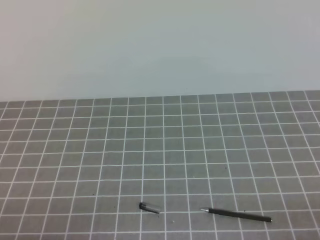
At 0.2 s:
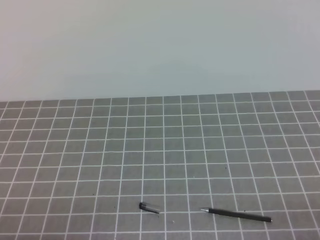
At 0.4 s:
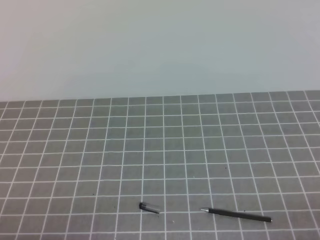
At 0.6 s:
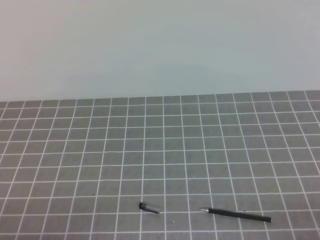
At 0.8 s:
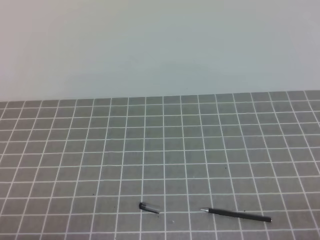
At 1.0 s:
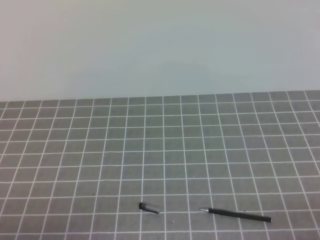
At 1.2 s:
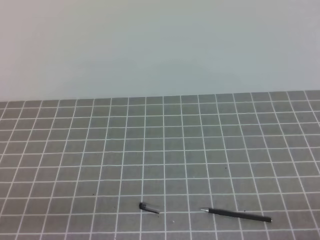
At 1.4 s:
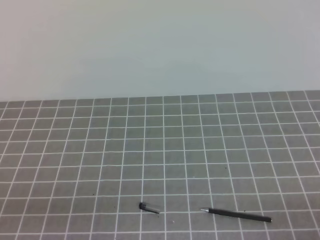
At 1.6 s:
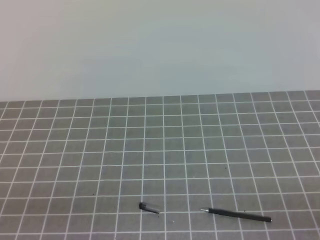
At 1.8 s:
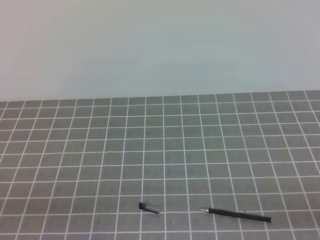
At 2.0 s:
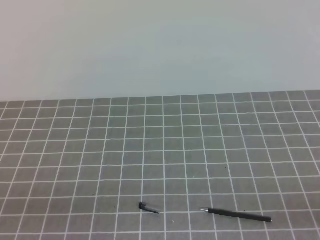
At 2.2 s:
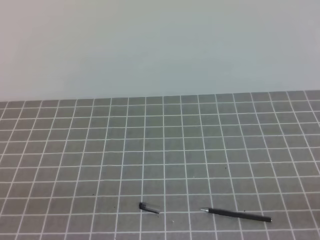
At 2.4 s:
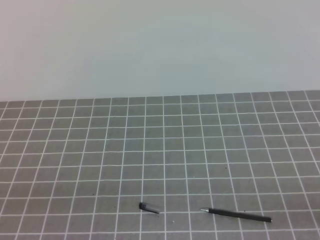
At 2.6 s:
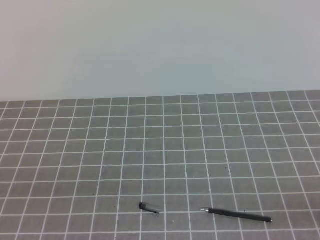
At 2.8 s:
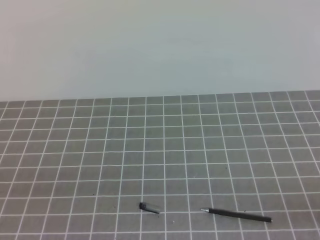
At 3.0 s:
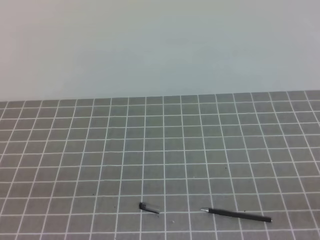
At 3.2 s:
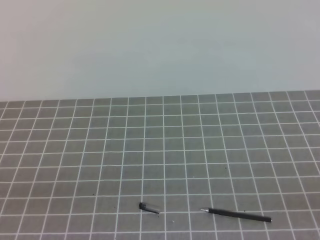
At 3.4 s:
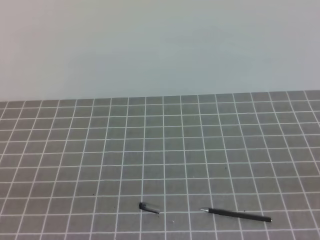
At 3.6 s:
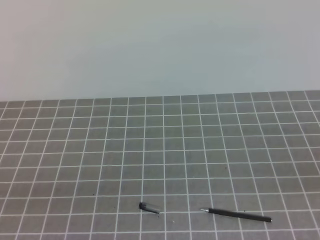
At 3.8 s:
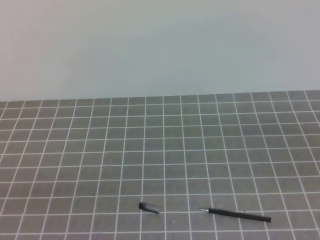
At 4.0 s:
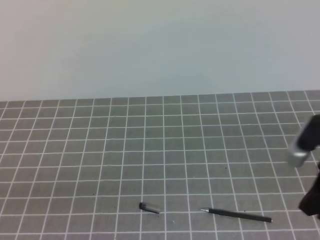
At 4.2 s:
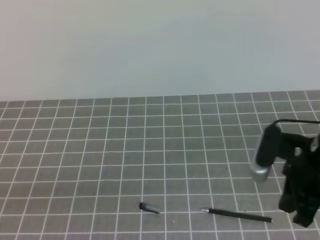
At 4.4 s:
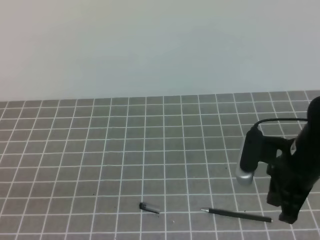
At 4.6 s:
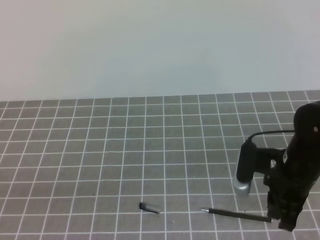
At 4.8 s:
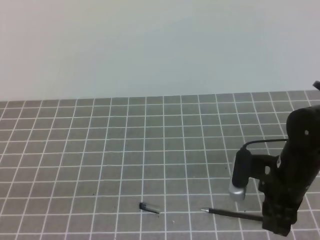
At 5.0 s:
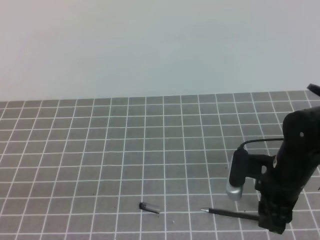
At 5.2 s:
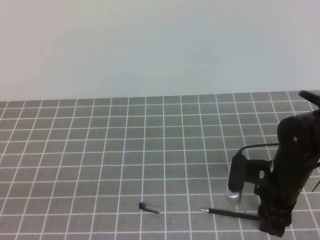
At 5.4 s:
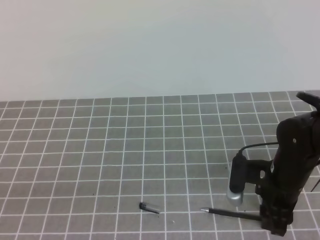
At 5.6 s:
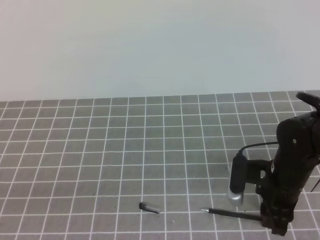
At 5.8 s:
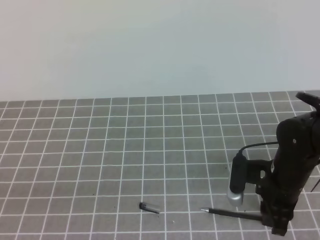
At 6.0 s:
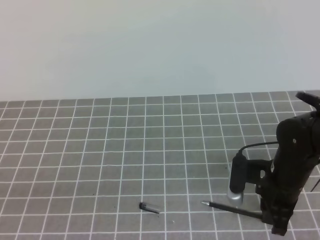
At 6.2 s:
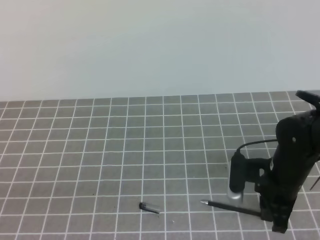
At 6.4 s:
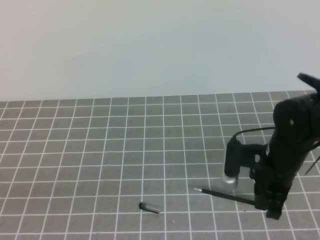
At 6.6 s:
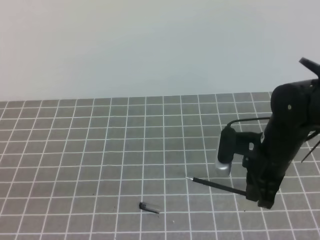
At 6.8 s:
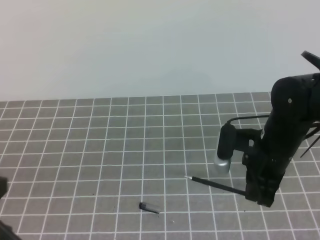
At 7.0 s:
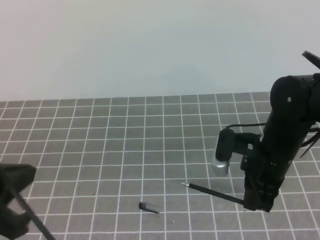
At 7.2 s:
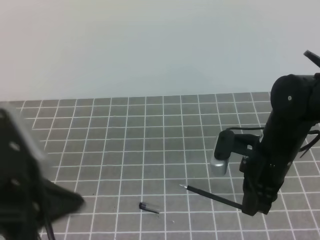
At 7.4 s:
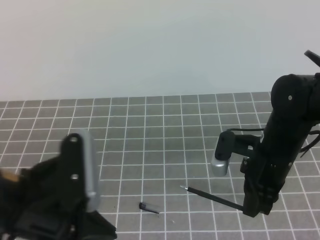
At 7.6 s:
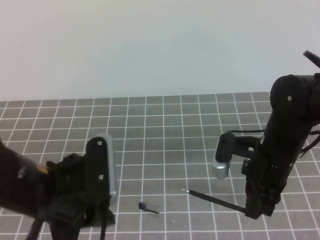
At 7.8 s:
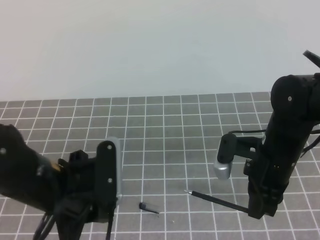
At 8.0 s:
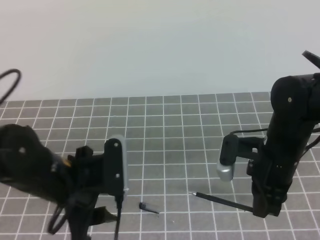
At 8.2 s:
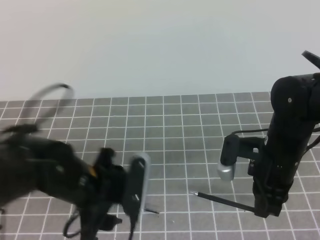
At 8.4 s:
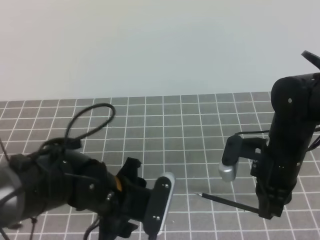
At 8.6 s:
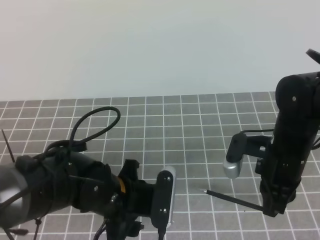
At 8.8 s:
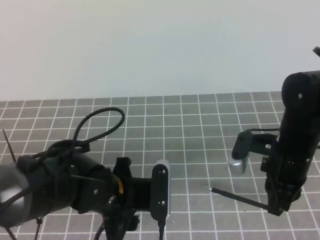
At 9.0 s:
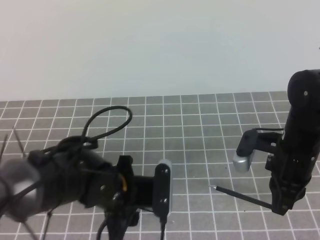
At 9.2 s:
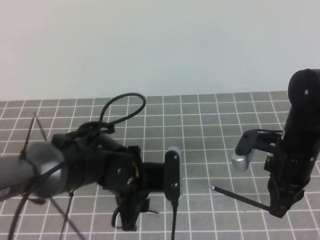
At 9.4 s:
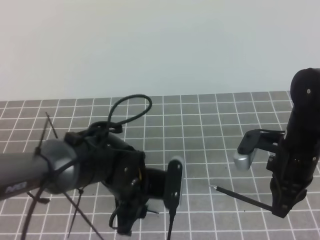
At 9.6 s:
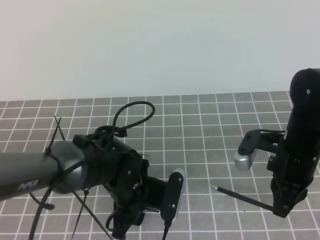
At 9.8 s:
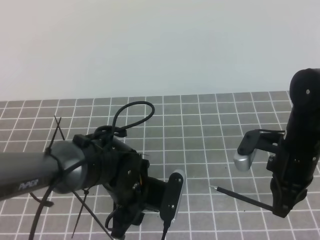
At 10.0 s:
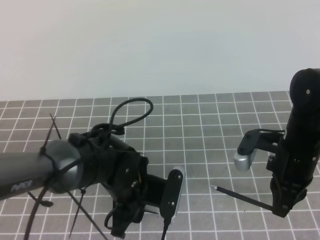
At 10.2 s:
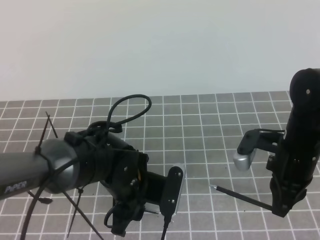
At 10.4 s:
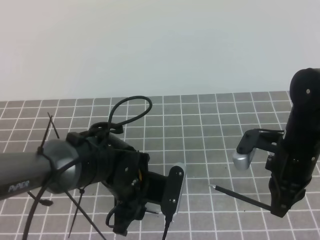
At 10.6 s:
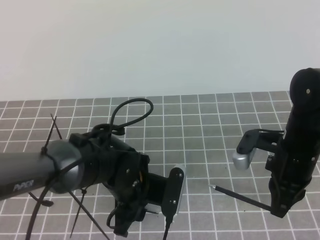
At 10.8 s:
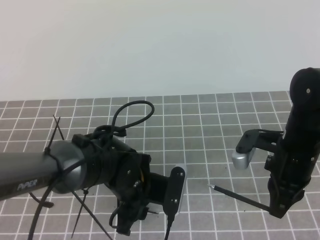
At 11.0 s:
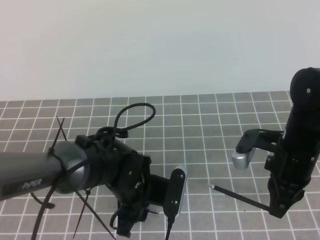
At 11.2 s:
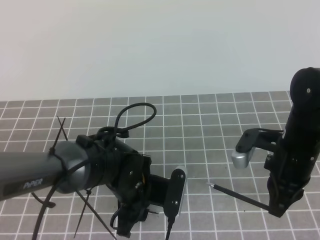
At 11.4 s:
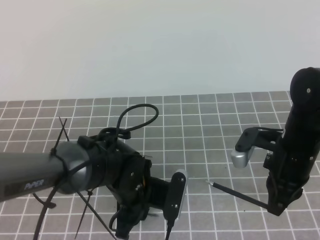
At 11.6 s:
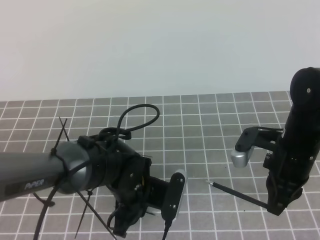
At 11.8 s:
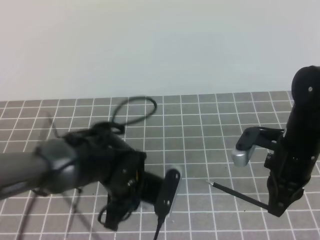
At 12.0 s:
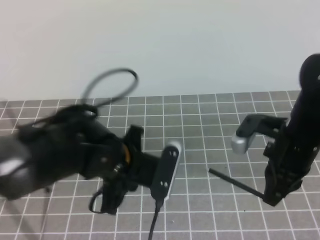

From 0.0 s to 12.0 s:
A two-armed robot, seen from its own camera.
Task of the whole recording: on the grey tablecloth, hold the pen cap in one hand and the pen in the other, then cover the pen cap.
From 3.0 s to 4.4 s: The right gripper goes about 25 cm forward and to the left.
From 4.4 s to 6.0 s: The right gripper is displaced downward by roughly 5 cm, and opens, then closes again.
From 6.0 s to 7.6 s: The left gripper shifts about 20 cm forward and to the right; the right gripper shifts some 5 cm upward.
From 7.6 s to 9.0 s: The left gripper travels downward, to the right and forward by about 15 cm, and opens its fingers.
From 9.0 s to 10.4 s: The grippers stay close to where they were, moving slightly.
From 10.4 s to 12.0 s: The left gripper shifts about 5 cm upward, and closes up.

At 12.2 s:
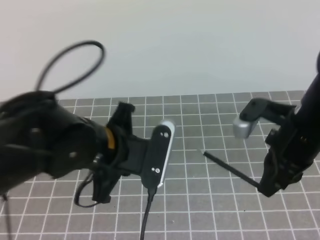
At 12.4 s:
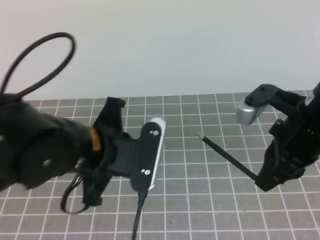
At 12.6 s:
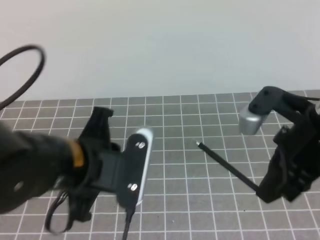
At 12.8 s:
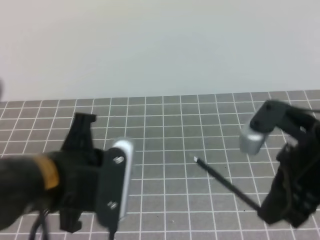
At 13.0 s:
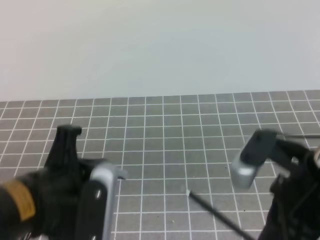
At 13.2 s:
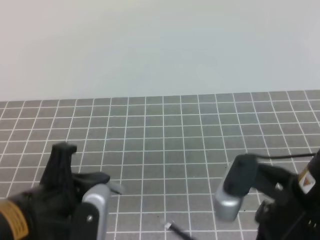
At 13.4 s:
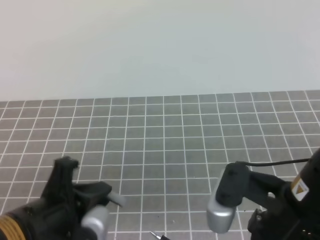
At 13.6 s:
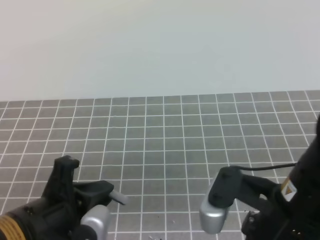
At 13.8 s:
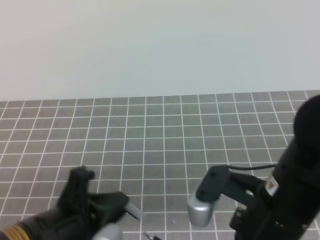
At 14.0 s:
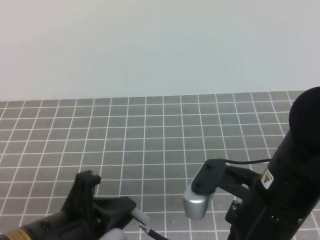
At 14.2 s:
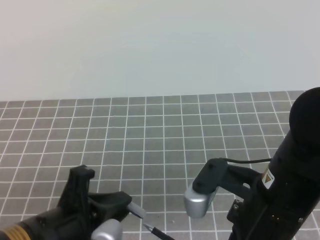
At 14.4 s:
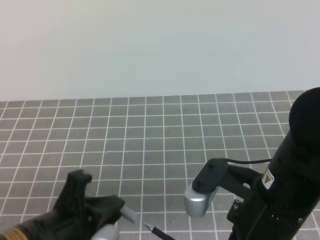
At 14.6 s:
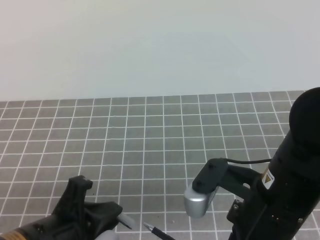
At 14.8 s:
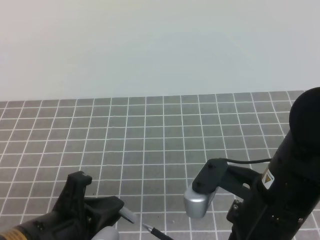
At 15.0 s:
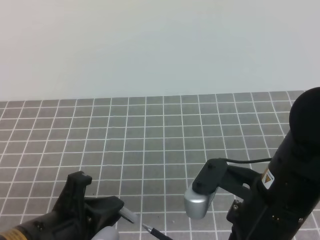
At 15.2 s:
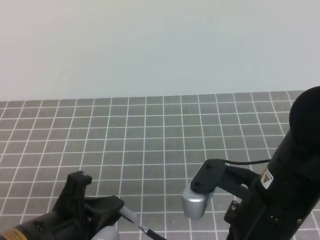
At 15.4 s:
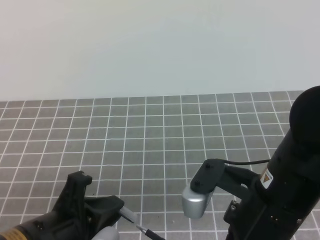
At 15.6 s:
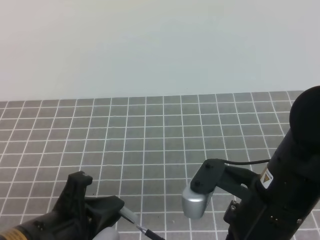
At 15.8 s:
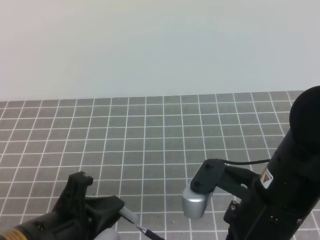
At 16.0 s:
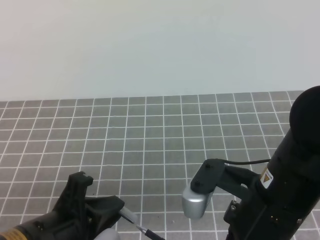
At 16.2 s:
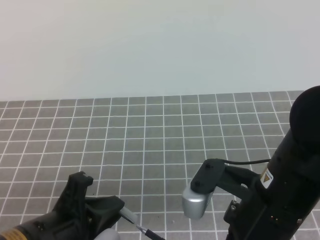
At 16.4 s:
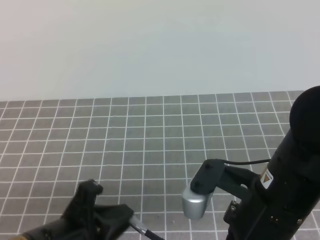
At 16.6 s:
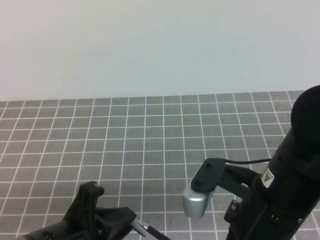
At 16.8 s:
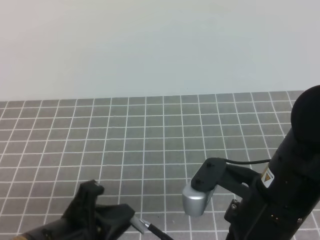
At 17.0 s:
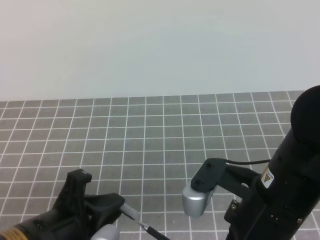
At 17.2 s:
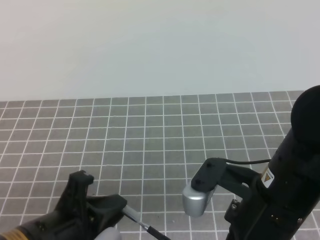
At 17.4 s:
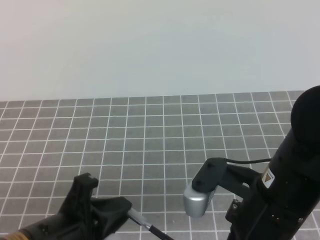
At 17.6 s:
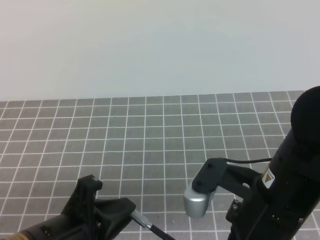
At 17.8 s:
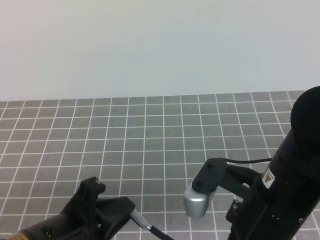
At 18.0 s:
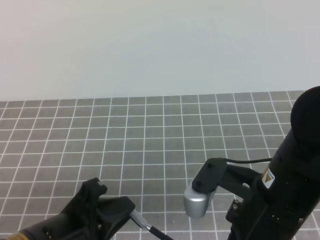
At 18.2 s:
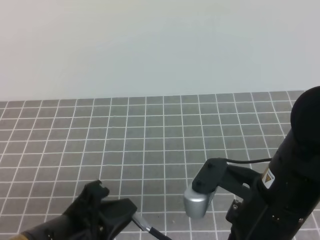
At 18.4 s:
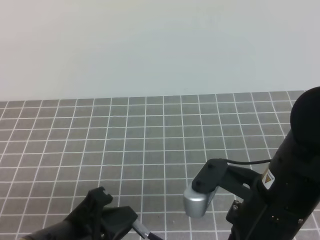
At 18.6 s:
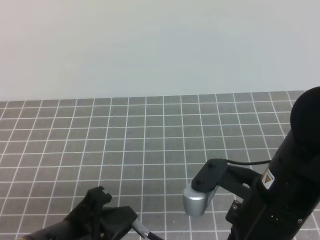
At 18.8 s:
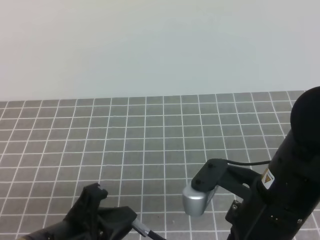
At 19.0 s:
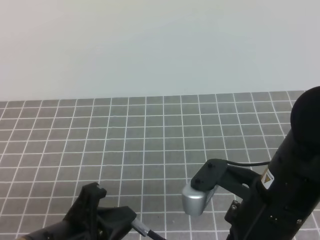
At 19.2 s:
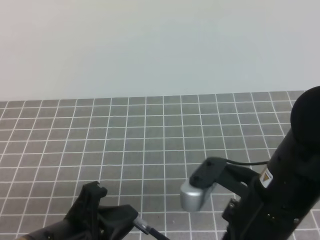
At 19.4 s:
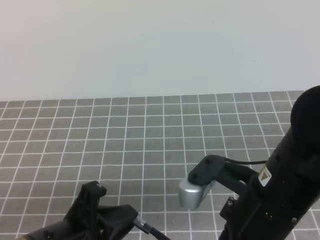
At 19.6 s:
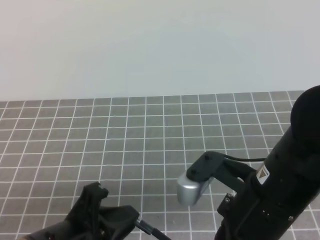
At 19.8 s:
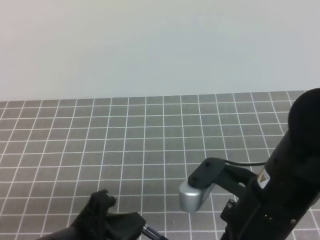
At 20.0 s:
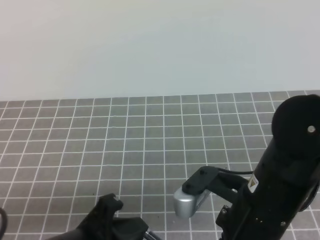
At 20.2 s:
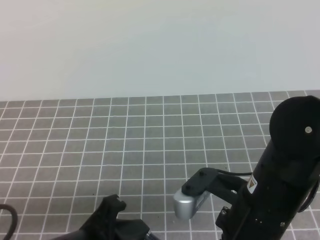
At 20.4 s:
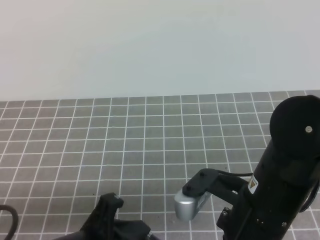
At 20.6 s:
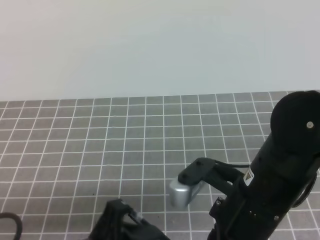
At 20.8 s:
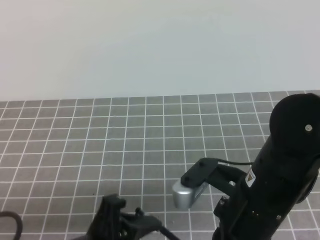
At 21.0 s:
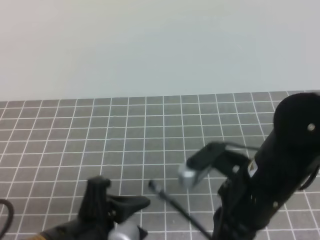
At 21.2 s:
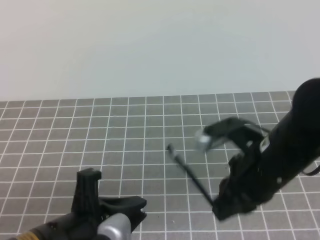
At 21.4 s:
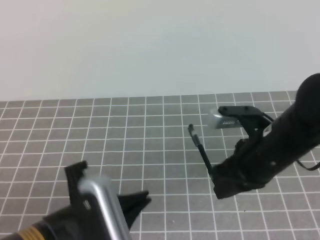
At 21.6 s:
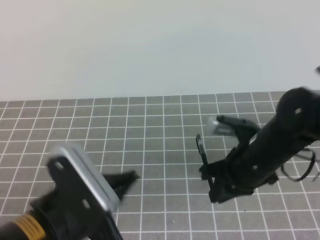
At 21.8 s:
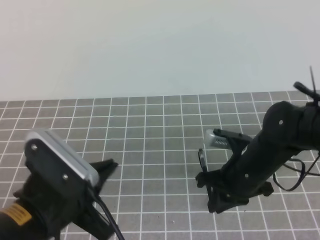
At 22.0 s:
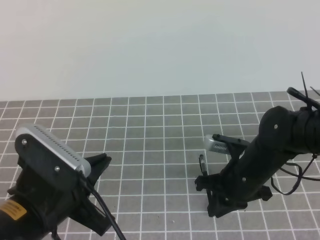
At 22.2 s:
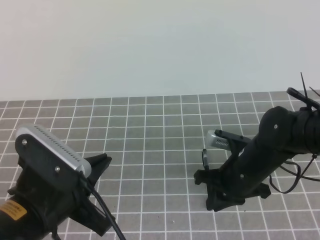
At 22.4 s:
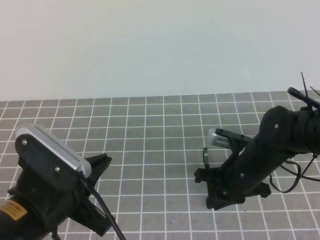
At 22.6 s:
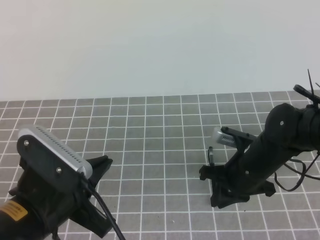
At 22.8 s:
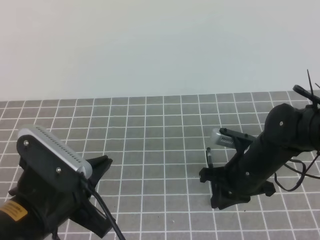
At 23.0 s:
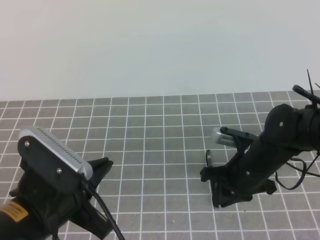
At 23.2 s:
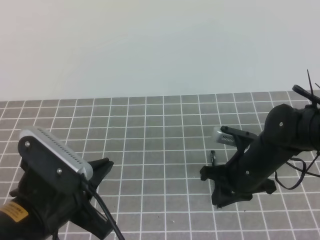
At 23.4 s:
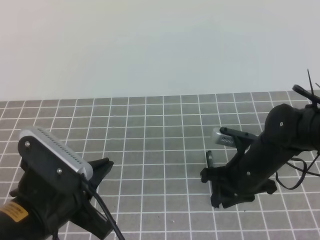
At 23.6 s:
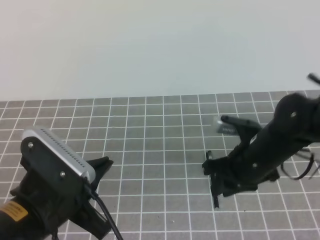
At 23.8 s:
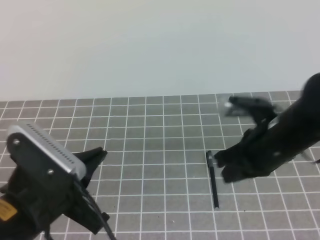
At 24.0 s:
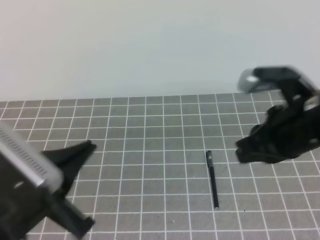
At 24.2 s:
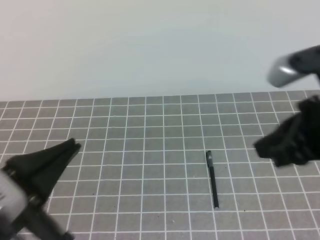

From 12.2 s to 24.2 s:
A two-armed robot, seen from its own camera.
Task of the whole recording: on the grey tablecloth, hold the pen cap in one hand and the pen in the other, then cover the pen cap.
From 12.2 s to 13.8 s: Both grippers move backward and to the left, some 15 cm.
From 13.8 s to 16.6 s: Neither gripper changes place.
From 16.6 s to 19.8 s: The grippers move only a little.
From 19.8 s to 21.2 s: The right gripper goes some 5 cm forward. Meanwhile the left gripper opens and closes again.
From 21.2 s to 22.6 s: The right gripper heads downward and forward, covering roughly 15 cm, while the left gripper closes.
From 22.6 s to 24.2 s: The left gripper changes place by roughly 5 cm. Meanwhile the right gripper shifts approximately 20 cm upward and backward, and opens and closes again.
